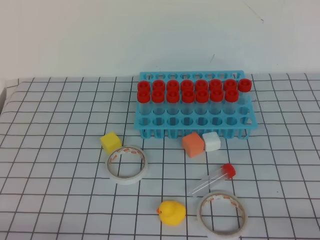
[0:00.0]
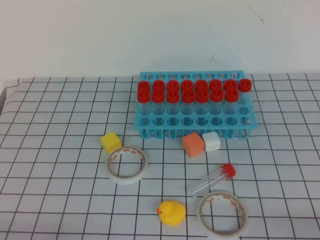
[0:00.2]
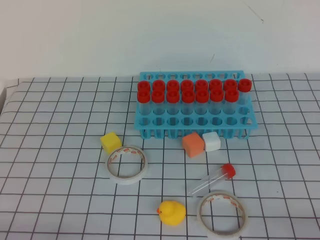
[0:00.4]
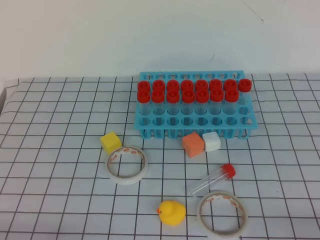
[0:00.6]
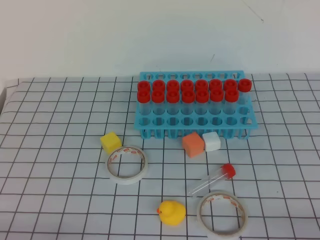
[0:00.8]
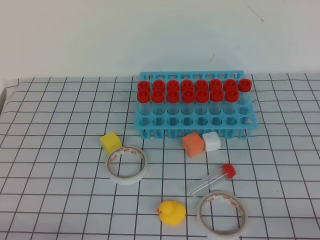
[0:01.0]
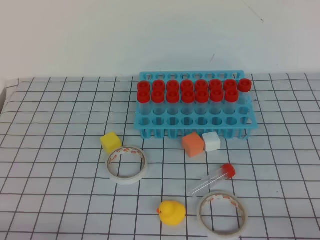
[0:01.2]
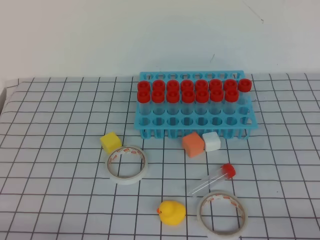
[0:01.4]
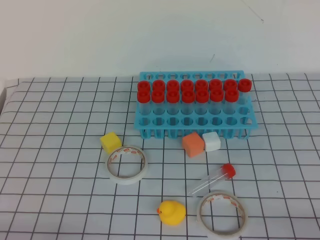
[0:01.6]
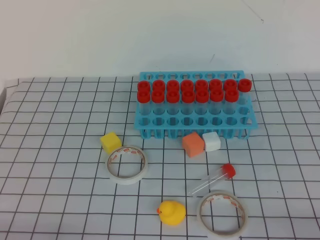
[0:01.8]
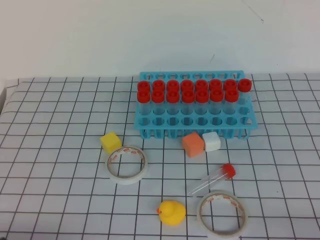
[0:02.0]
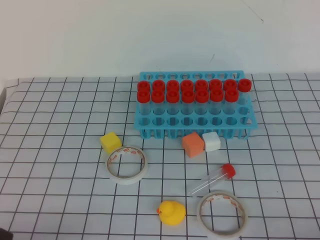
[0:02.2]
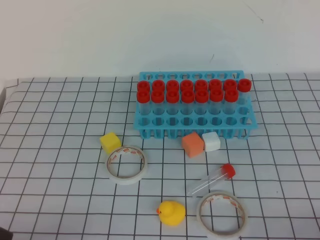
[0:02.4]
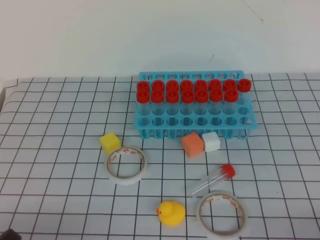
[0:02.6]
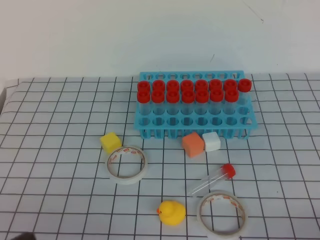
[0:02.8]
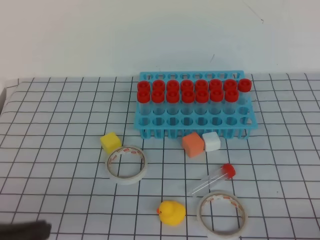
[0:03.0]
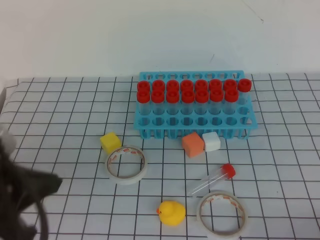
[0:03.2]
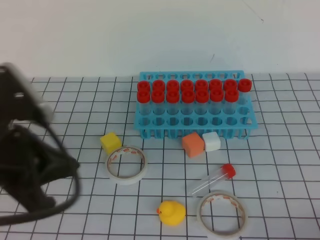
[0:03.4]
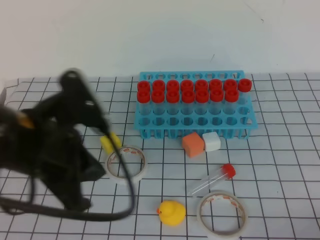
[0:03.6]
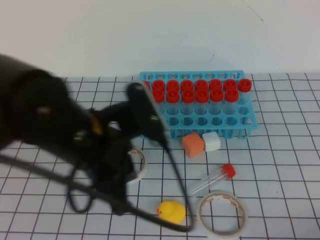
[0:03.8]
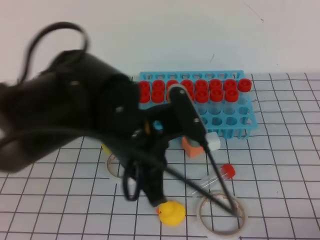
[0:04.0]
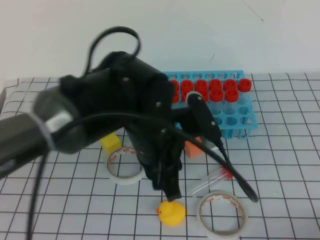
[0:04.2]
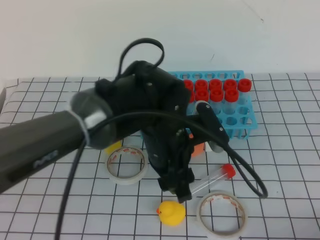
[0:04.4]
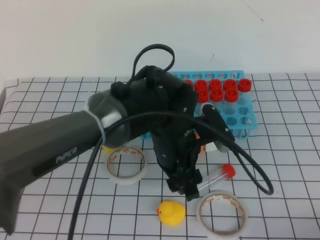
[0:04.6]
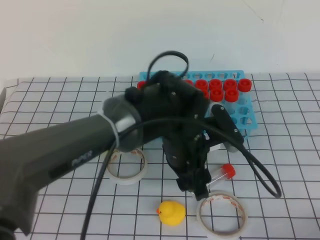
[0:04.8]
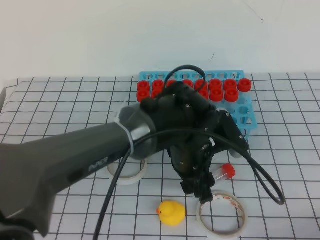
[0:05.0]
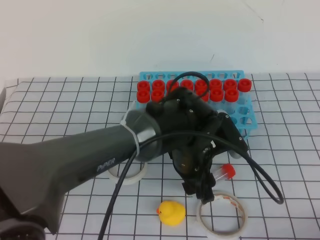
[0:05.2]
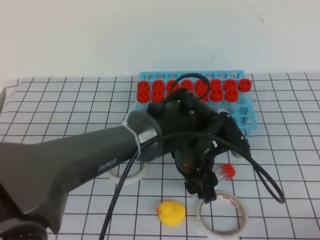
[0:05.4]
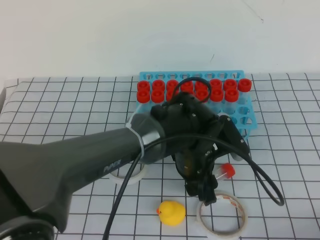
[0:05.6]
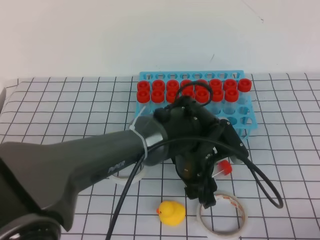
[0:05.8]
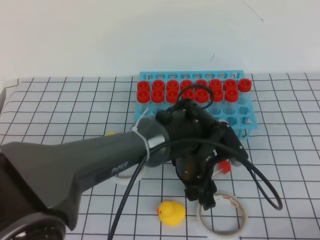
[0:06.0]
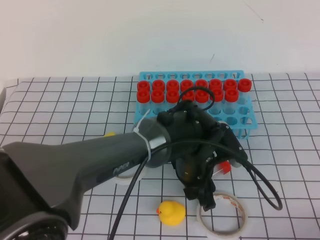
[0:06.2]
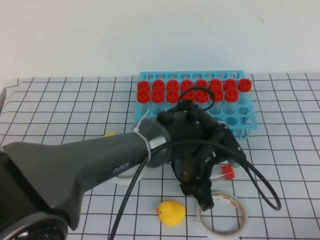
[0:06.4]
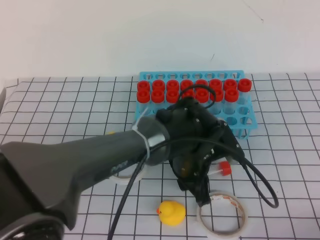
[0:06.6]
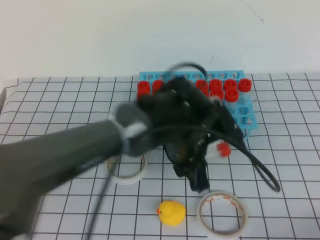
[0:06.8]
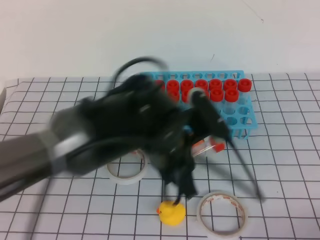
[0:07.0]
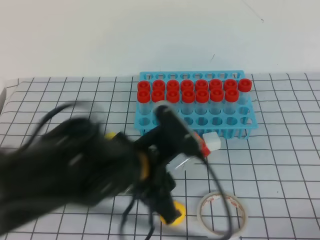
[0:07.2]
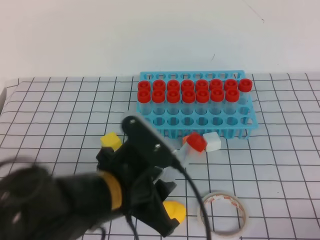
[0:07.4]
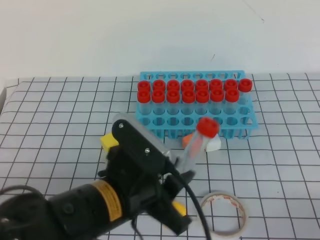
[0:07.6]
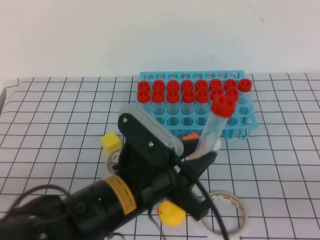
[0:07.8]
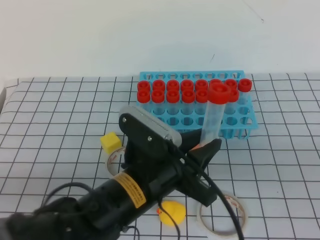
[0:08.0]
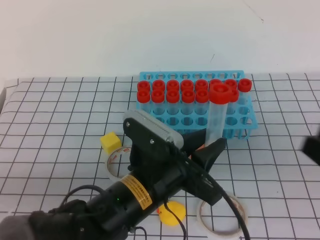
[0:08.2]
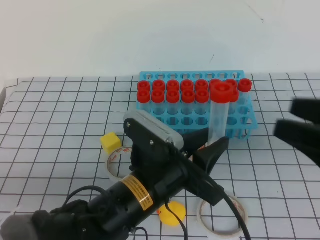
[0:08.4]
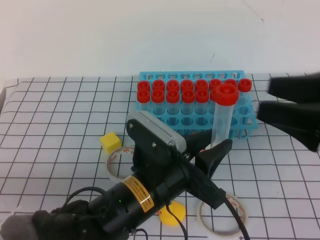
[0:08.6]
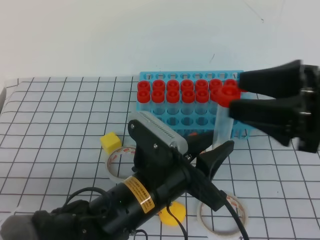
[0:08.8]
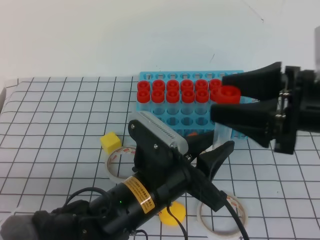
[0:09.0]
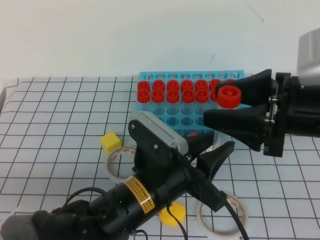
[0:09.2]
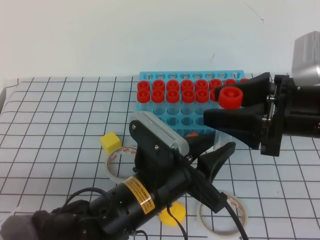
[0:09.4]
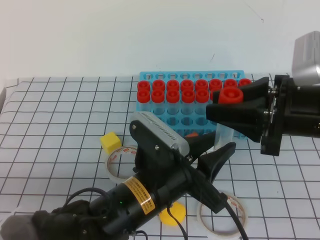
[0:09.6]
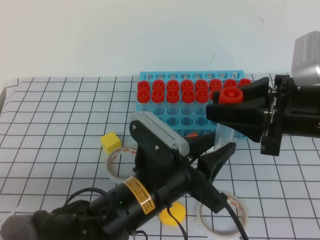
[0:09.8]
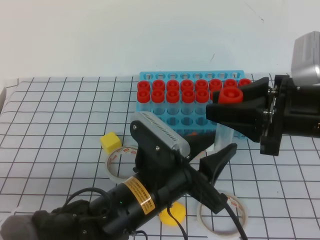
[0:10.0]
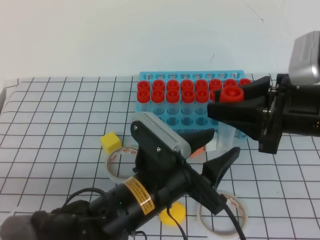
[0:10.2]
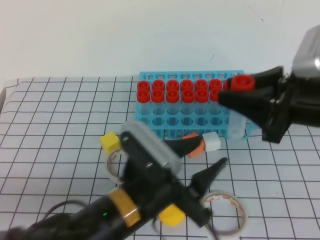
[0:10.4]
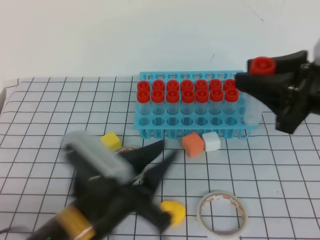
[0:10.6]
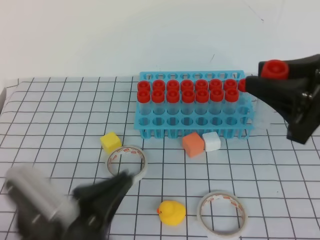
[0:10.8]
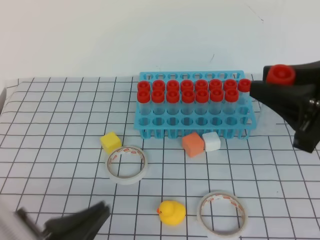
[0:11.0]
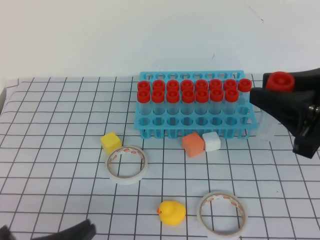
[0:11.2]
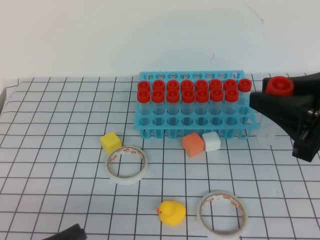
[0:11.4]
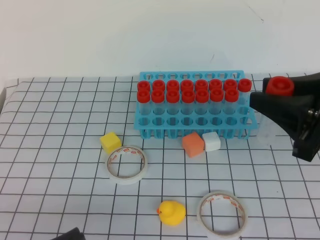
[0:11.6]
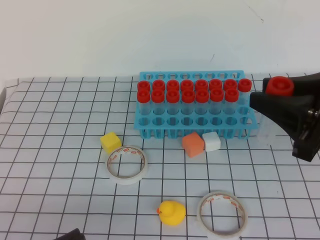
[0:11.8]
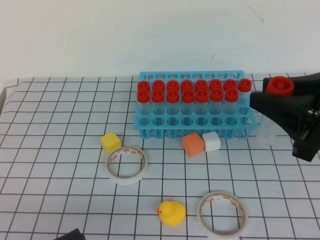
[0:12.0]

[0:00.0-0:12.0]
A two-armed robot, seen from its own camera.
0:00.0 to 0:01.6: Both grippers stay put.
0:01.6 to 0:03.0: The left gripper heads upward, covering approximately 15 cm.
0:03.0 to 0:04.4: The left gripper goes about 30 cm to the right and forward, and opens its fingers.
0:04.4 to 0:06.0: The left gripper goes roughly 10 cm downward and to the right.
0:06.0 to 0:07.6: The left gripper shifts about 20 cm backward, to the left and upward, and closes.
0:07.6 to 0:09.0: The right gripper moves forward, upward and to the left, roughly 25 cm, and opens up.
0:09.0 to 0:10.4: The right gripper closes up; the left gripper opens its fingers.
0:10.4 to 0:12.0: The left gripper shifts some 20 cm to the left and backward, and closes, while the right gripper ends up some 5 cm from where it was.

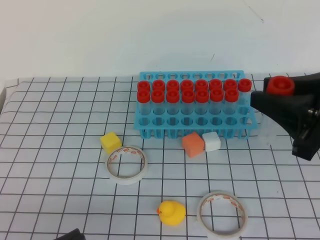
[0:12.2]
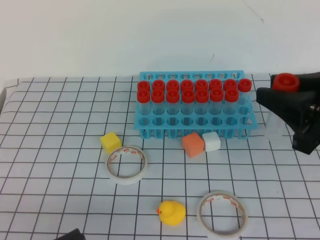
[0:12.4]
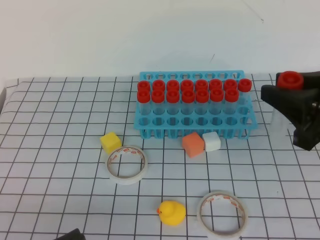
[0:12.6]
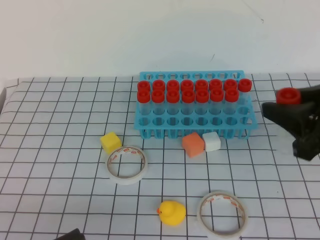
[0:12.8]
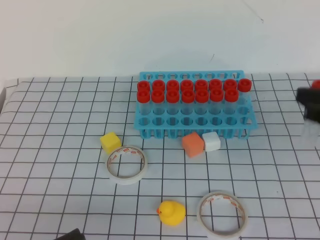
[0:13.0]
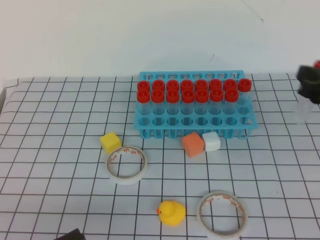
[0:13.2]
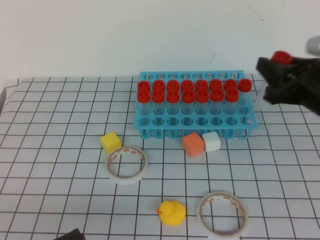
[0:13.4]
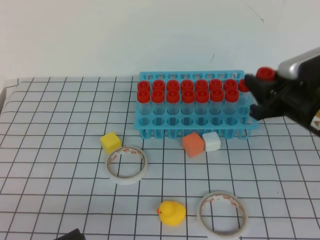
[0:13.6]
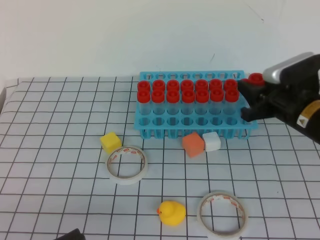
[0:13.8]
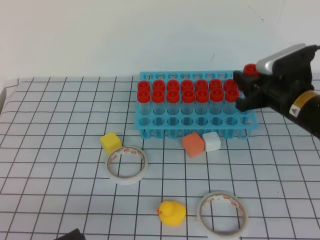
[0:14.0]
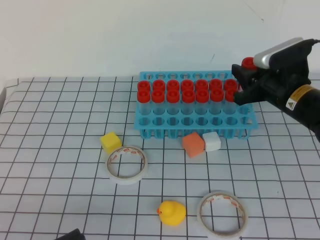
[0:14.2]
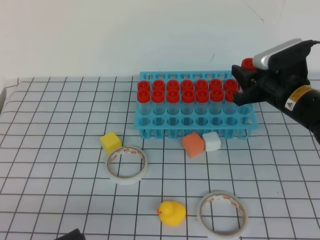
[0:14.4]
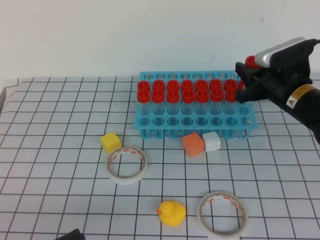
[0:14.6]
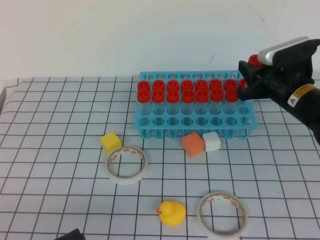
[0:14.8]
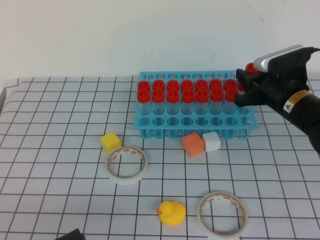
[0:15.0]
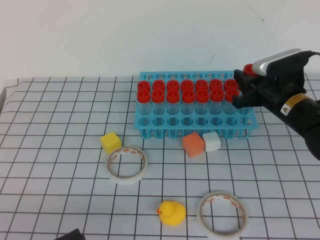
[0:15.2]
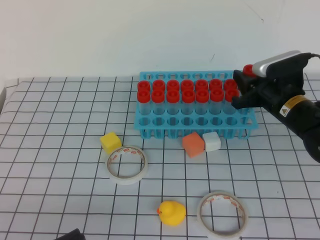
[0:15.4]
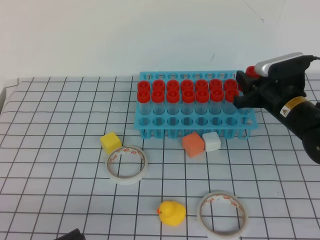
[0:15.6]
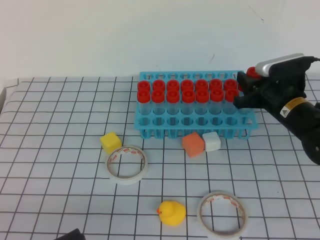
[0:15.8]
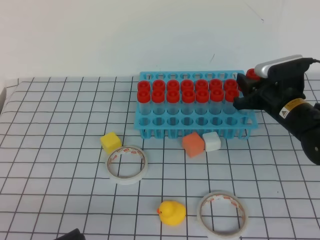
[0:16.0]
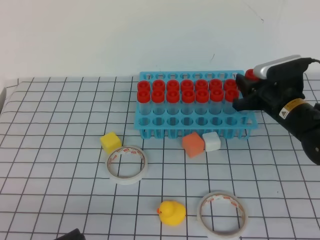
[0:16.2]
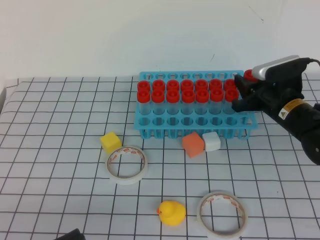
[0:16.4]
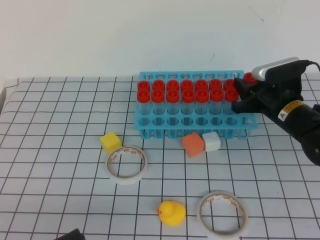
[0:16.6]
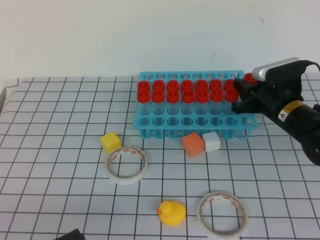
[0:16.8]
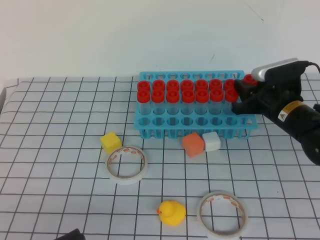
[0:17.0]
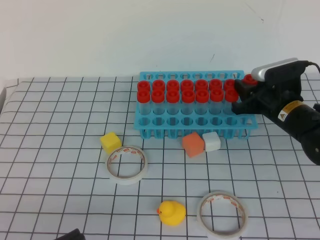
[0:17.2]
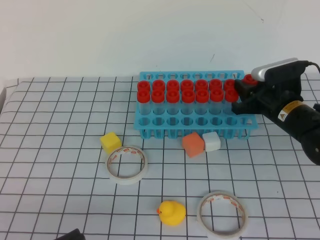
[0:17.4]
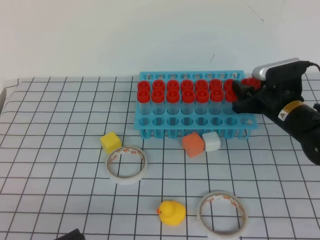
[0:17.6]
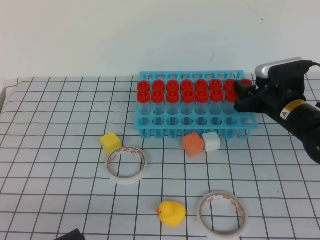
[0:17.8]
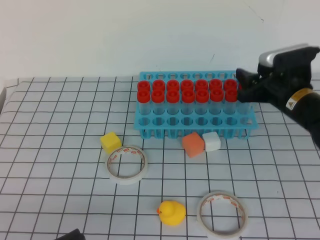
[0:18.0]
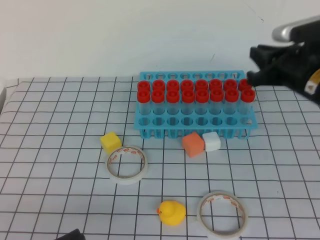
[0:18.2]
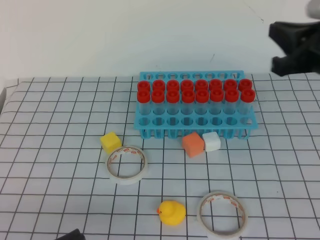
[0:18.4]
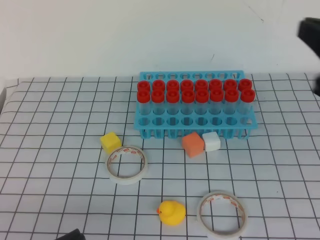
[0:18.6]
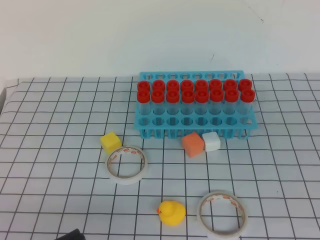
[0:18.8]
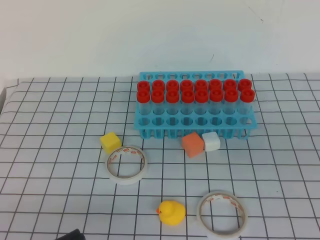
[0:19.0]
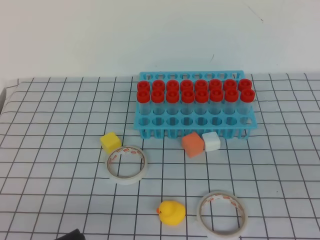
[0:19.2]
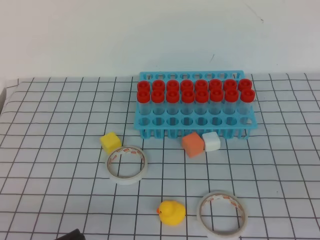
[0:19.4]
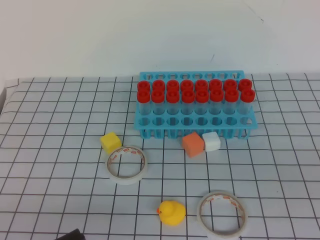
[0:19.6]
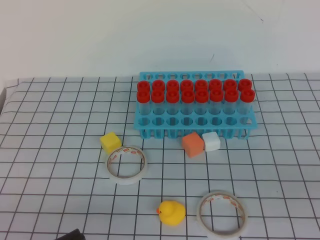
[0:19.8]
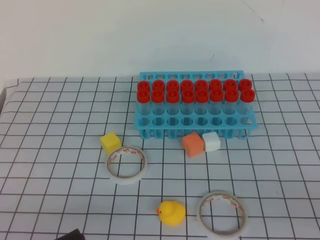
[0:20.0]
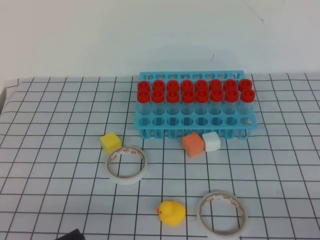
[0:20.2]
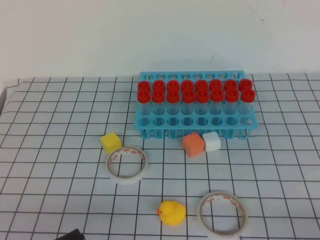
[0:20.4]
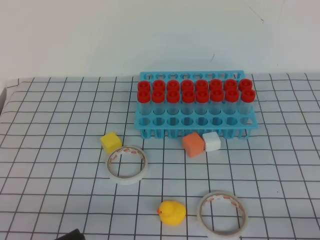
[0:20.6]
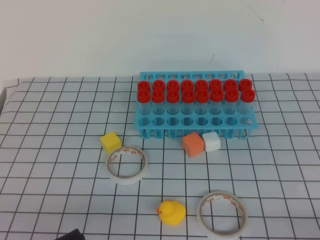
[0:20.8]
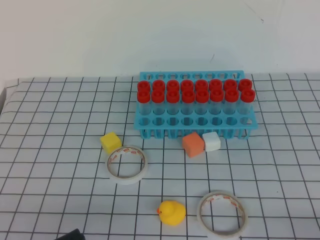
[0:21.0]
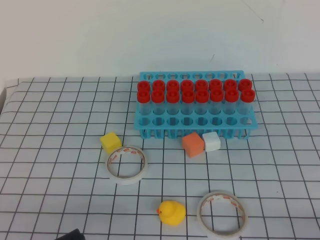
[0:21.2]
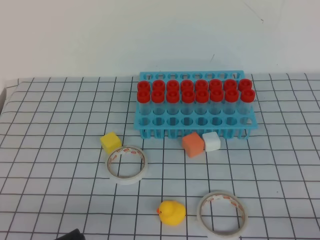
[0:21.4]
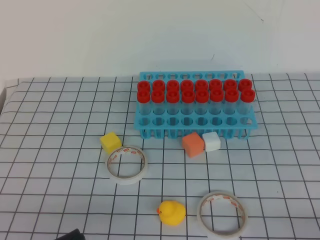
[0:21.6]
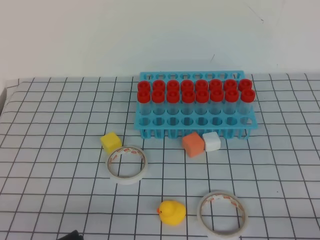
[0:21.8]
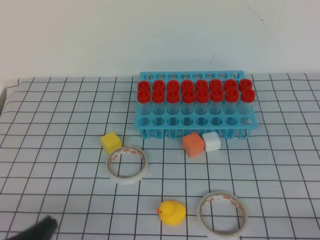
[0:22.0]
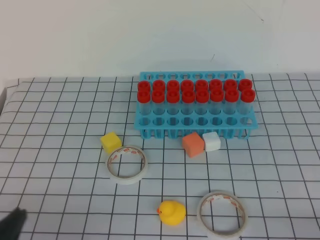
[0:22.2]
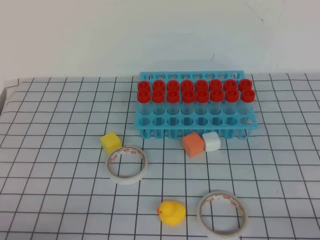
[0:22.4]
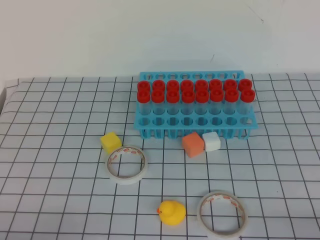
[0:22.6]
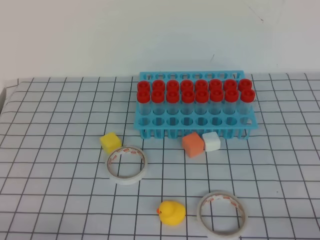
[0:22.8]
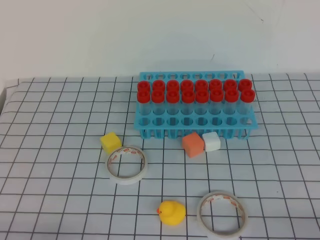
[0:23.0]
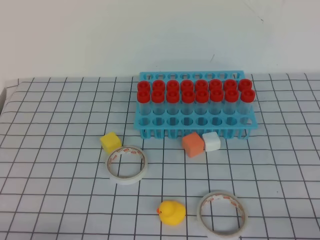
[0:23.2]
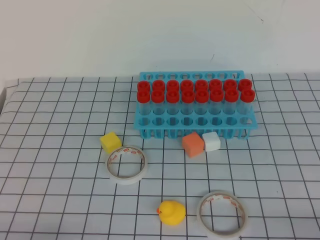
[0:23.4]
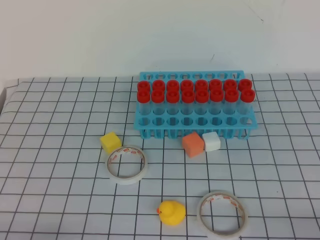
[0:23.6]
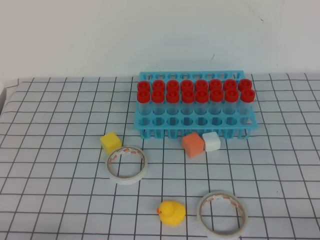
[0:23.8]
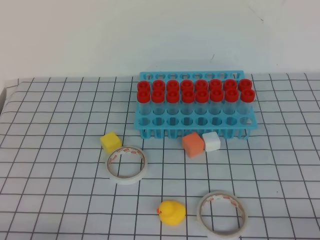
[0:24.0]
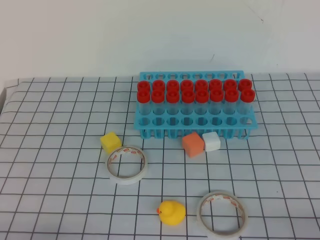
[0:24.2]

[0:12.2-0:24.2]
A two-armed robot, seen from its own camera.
0:12.2 to 0:13.8: The right gripper shifts approximately 15 cm forward and downward.
0:13.8 to 0:15.2: The right gripper ends up some 5 cm from where it was.
0:15.2 to 0:16.6: There are only small adjustments of the grippers.
0:16.6 to 0:18.2: The right gripper travels upward by approximately 10 cm.
0:18.2 to 0:19.8: The right gripper goes roughly 30 cm backward, and closes its fingers.
